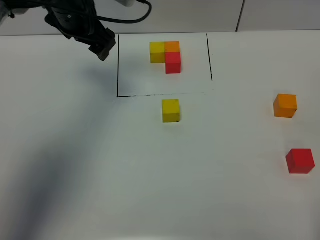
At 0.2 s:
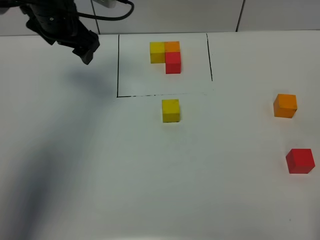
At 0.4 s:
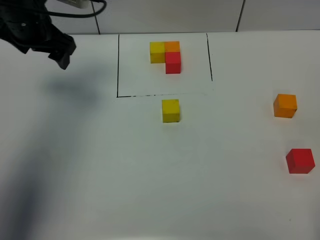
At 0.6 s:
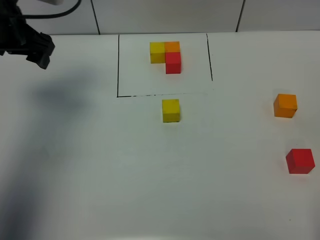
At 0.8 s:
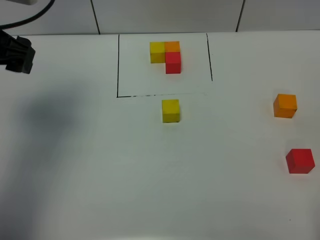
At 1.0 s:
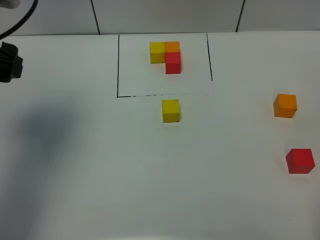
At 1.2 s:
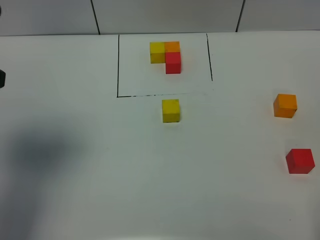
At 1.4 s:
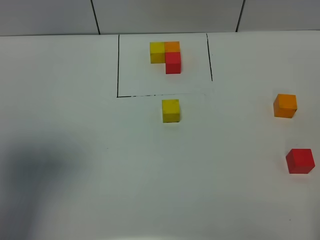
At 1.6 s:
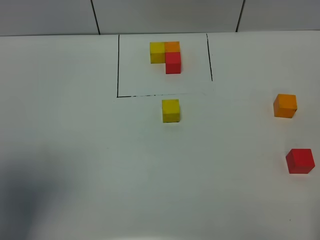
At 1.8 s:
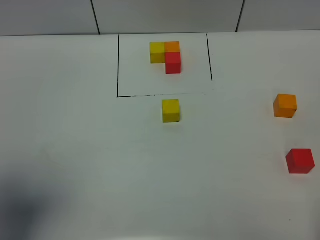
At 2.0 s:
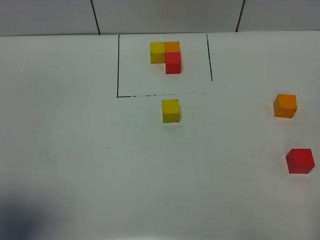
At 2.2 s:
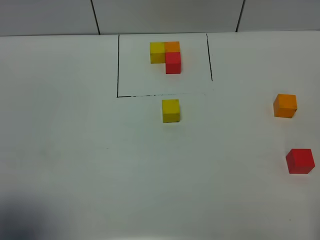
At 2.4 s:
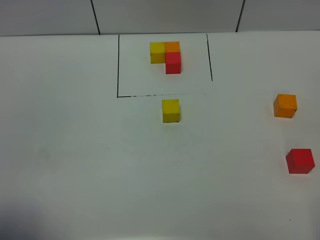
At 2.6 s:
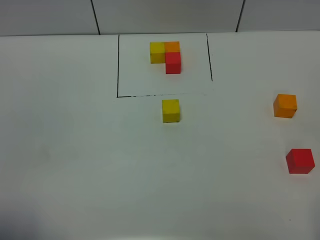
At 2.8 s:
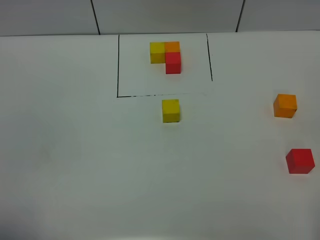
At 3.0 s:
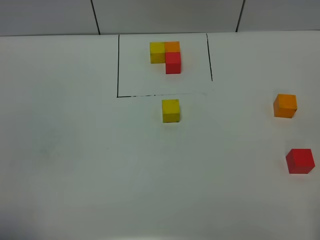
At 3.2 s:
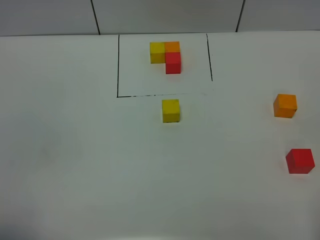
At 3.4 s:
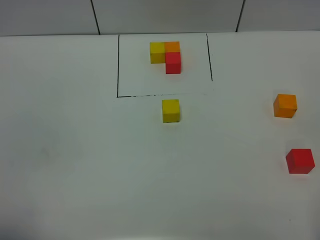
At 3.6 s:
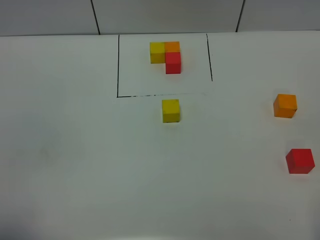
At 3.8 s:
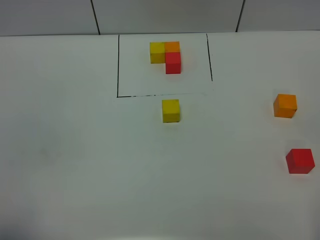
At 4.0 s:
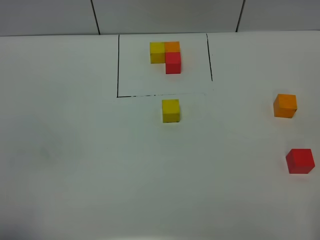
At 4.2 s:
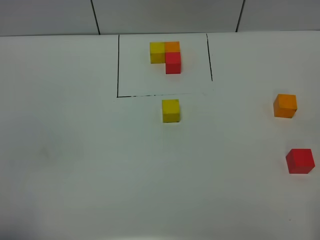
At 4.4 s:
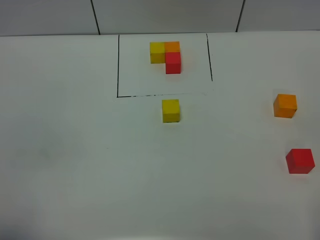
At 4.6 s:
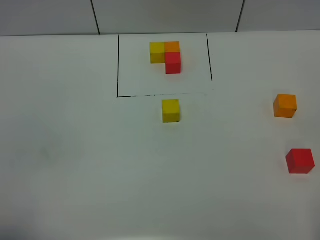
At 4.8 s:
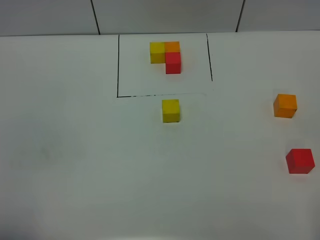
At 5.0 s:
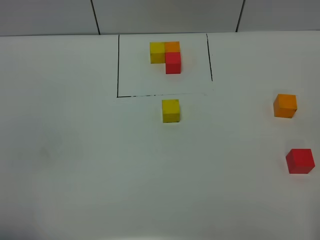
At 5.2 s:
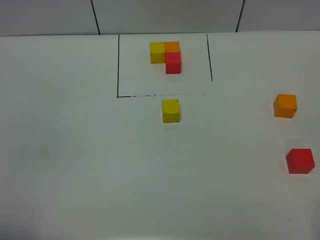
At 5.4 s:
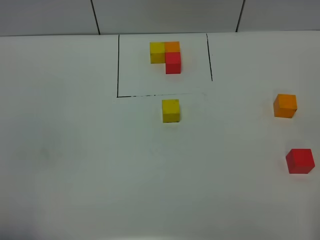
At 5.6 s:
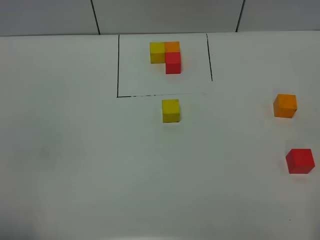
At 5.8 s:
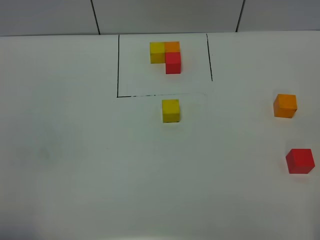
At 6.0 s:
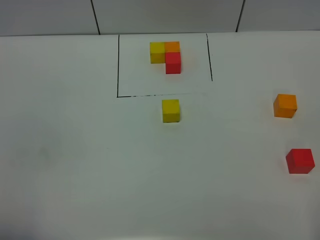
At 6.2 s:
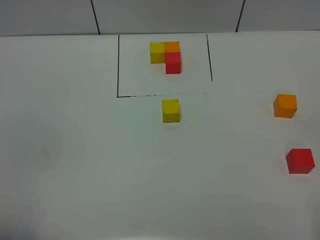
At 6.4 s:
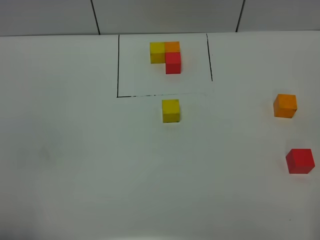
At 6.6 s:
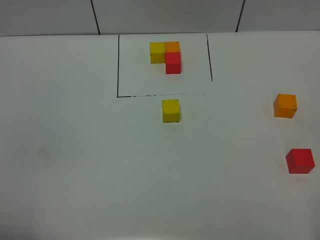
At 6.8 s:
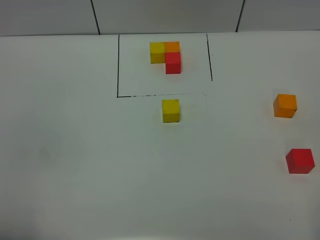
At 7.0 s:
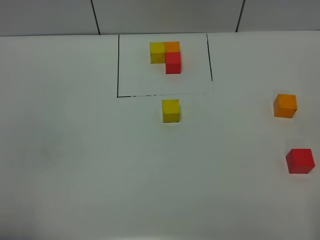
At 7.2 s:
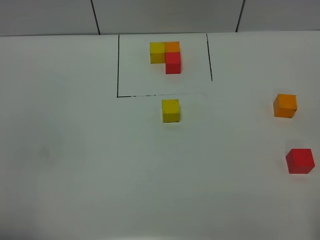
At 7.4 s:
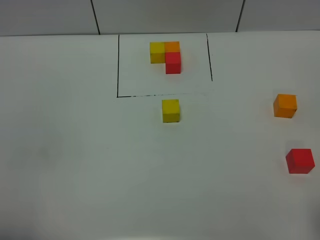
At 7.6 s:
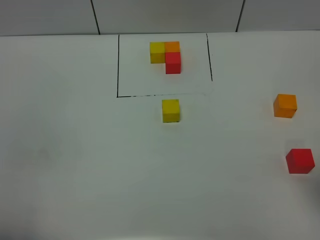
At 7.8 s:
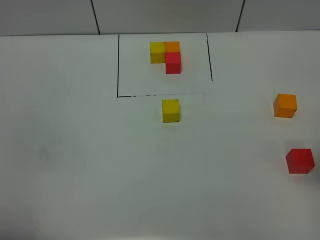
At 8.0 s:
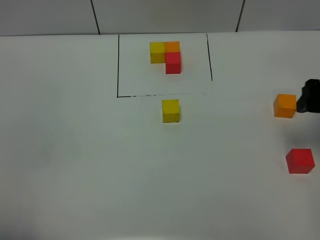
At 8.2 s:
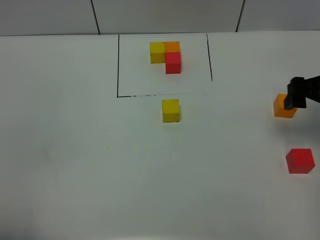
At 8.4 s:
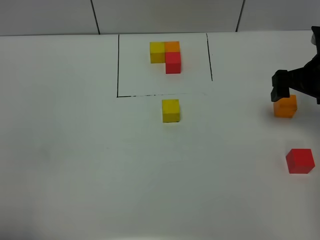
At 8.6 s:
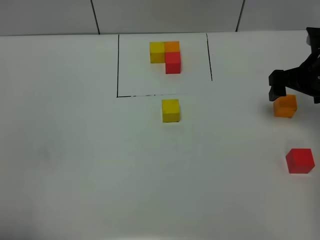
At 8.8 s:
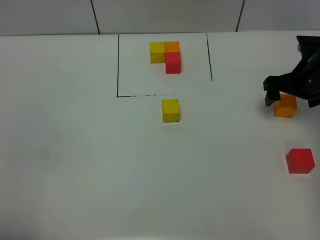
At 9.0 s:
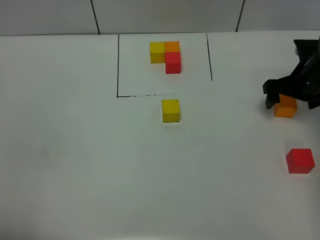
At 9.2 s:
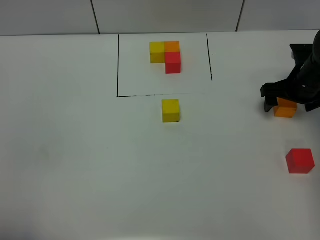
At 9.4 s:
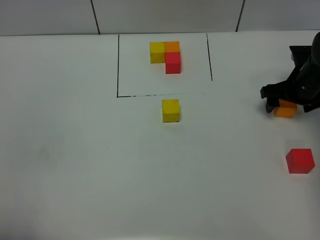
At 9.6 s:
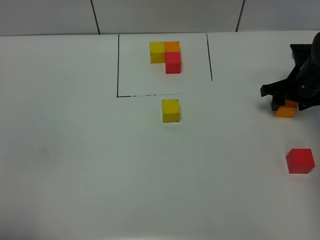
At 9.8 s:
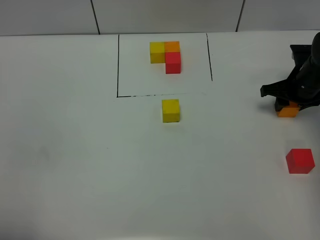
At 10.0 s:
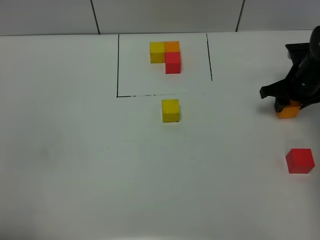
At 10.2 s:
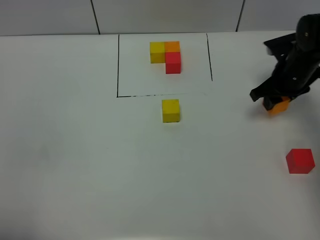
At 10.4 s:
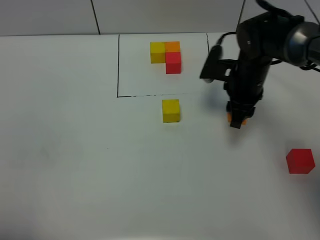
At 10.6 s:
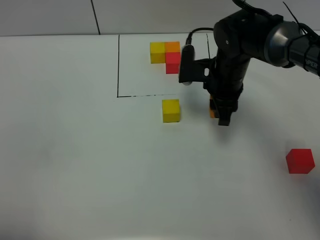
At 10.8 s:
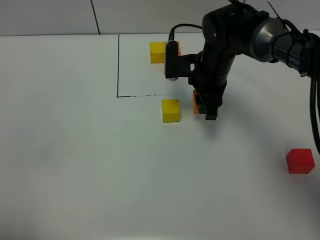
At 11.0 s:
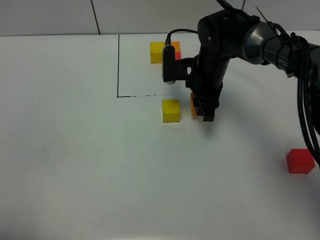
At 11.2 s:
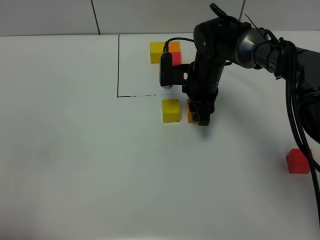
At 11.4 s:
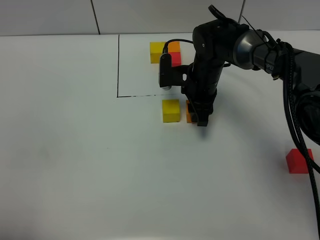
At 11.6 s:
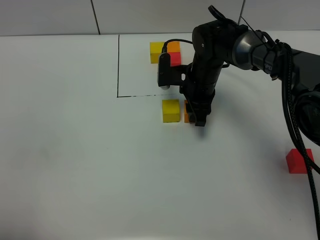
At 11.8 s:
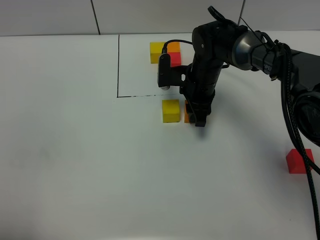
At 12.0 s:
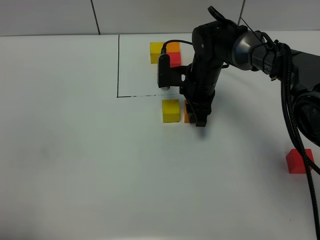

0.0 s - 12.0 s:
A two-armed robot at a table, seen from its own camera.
Task of the whole recording: According to the building block template in front, assemble the scattered blocks together.
0.0 s - 1.6 s: The left gripper heads backward, covering roughly 35 cm.
1.6 s - 3.0 s: The left gripper shifts about 15 cm backward and downward.
3.0 s - 4.4 s: Both grippers stay about where they are.
7.6 s - 9.0 s: The right gripper travels forward and downward by roughly 30 cm.
9.0 s - 10.4 s: The right gripper is displaced to the left by roughly 15 cm, and closes up.
10.4 s - 12.0 s: The right gripper shifts about 5 cm to the left.

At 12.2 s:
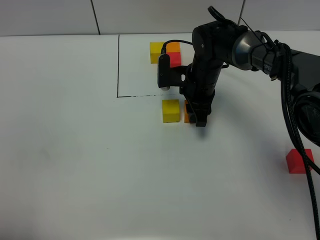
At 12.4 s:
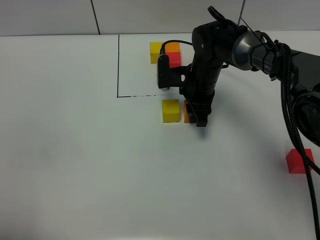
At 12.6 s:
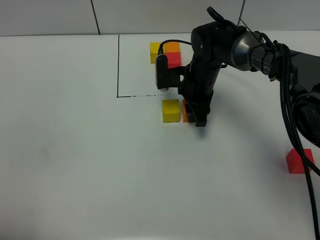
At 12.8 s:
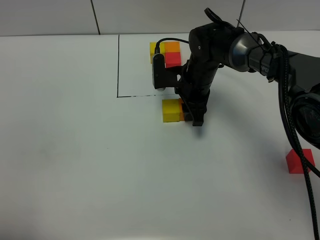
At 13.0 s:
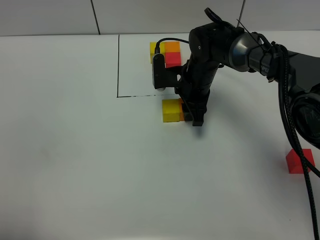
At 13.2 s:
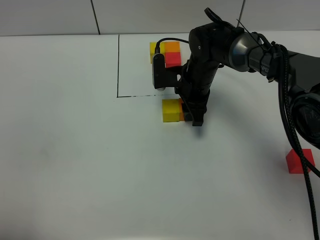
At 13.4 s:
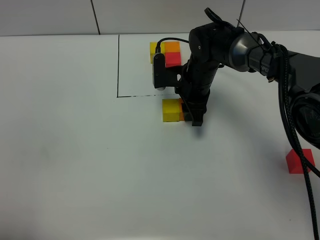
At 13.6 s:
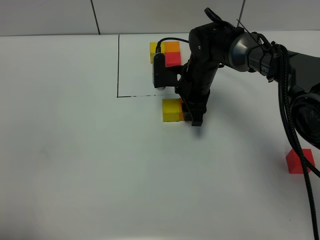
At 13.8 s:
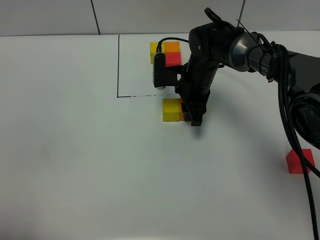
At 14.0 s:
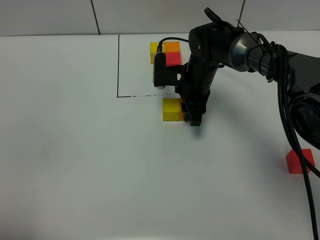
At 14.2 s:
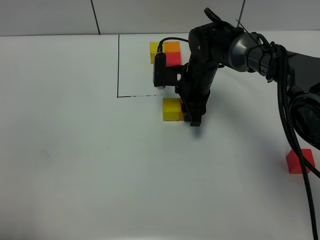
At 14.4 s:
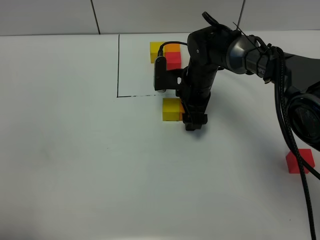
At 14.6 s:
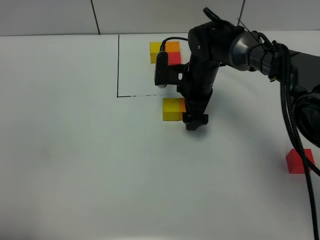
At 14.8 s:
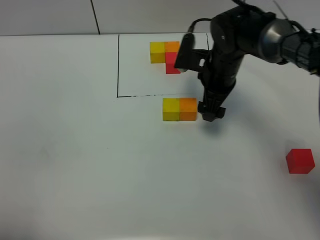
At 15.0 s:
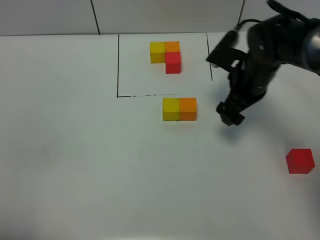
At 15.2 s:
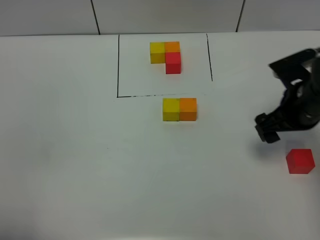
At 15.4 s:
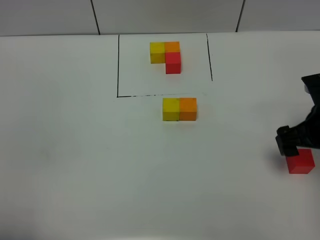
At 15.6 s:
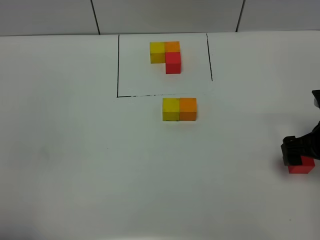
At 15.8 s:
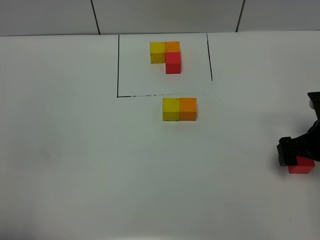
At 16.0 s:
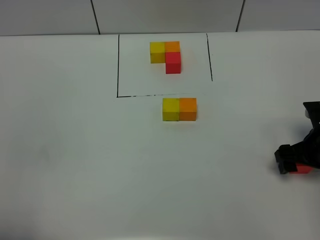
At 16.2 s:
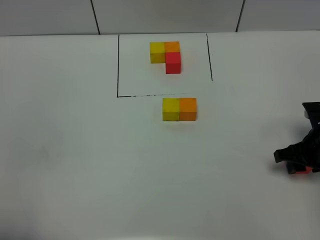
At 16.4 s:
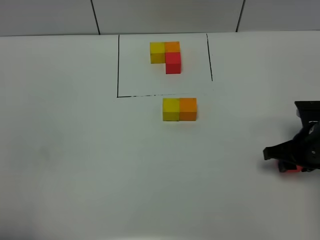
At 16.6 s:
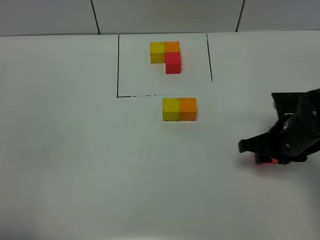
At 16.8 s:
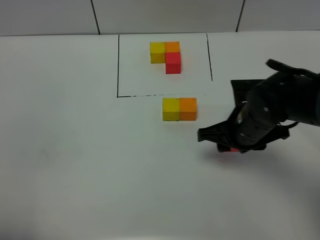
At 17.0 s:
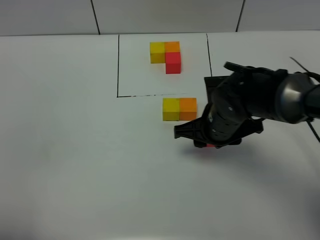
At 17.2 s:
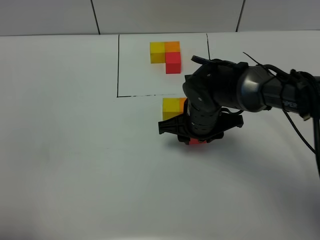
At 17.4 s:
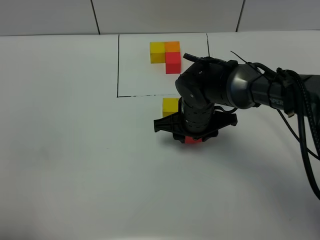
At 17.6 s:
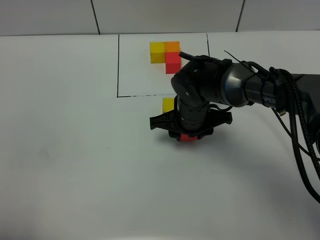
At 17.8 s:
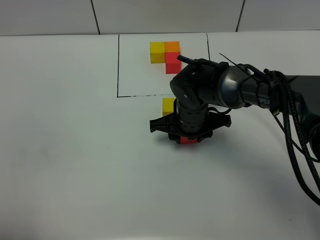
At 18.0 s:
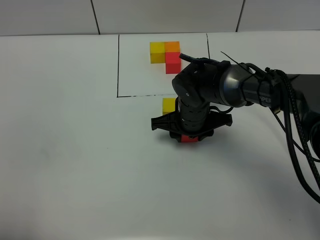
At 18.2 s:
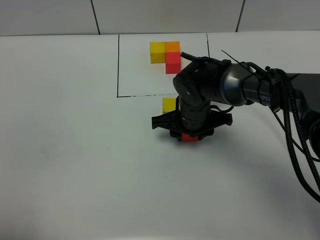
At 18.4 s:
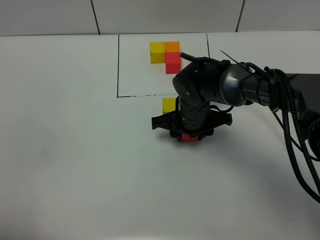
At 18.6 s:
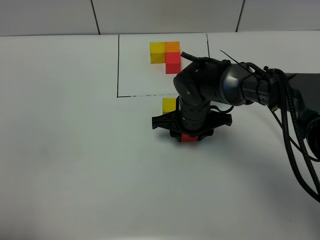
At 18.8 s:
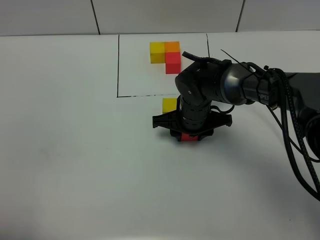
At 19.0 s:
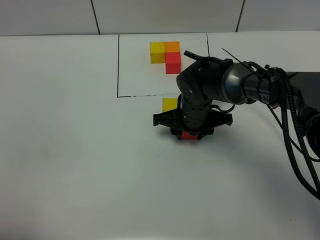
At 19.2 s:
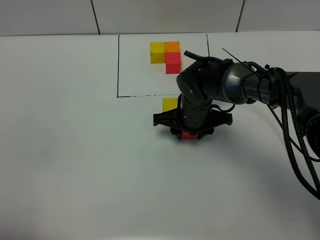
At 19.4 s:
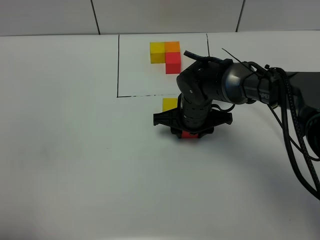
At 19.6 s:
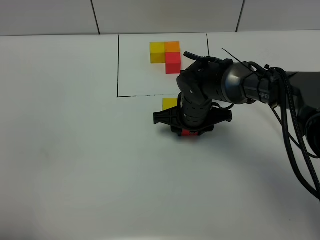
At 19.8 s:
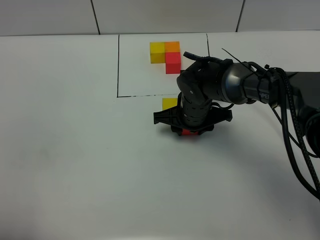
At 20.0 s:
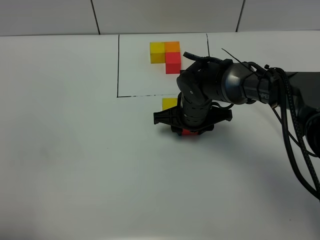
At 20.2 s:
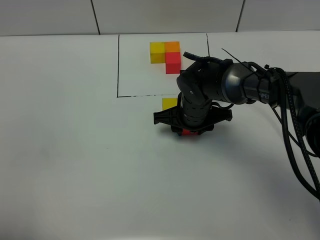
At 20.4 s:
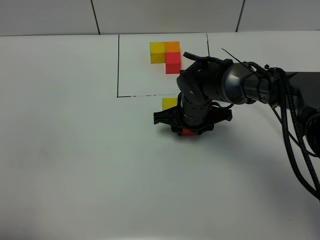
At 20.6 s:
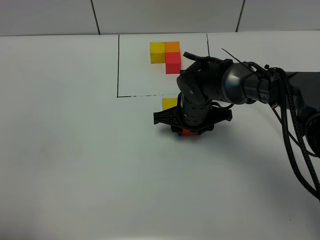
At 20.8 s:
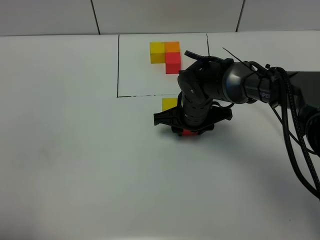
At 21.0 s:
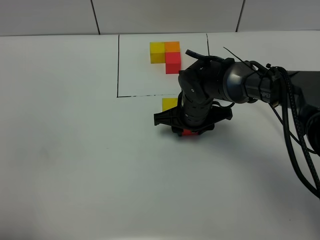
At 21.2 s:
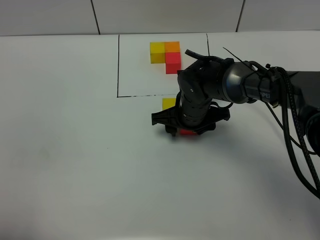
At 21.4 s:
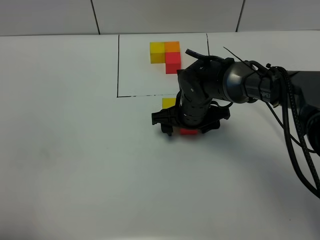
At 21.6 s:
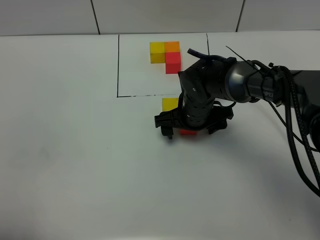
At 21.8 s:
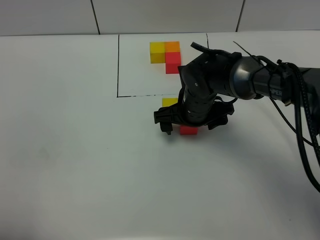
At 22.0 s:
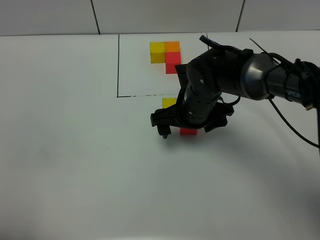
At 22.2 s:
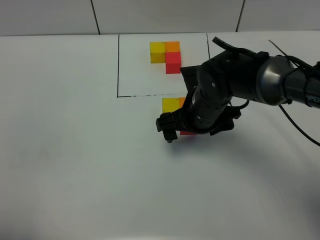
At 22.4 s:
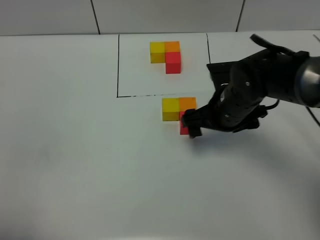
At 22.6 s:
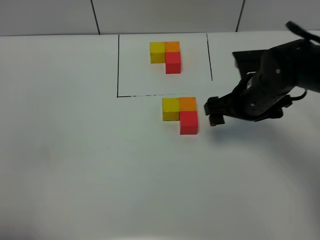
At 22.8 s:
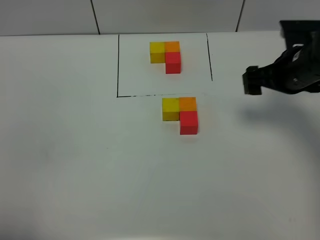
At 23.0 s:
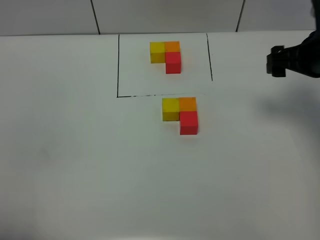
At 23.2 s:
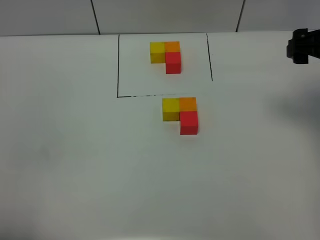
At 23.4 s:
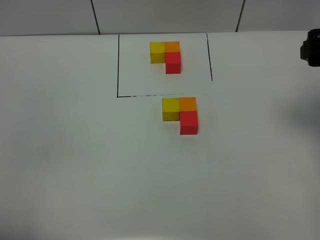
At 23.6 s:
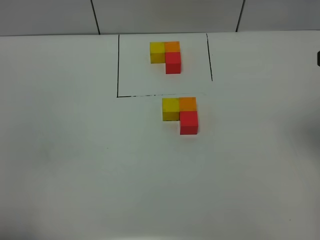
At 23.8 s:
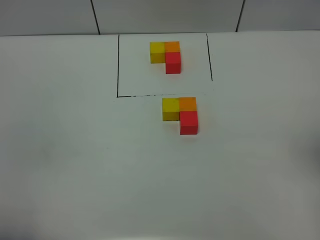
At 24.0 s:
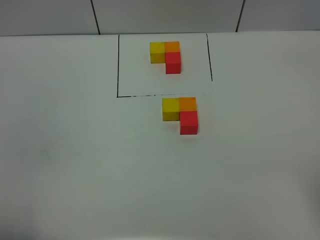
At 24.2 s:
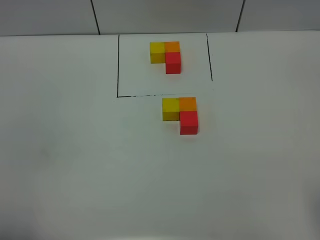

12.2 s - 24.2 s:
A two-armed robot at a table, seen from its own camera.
Task of the whole recording: According to the building block template in front, assemble the scattered blocks together.
Step, 12.2 s - 14.4 s: Put the orange build block on the right of the yellow build block.
Step, 14.6 s - 21.6 s: Put the red build block on the behind of the orange build block.
12.2 s - 13.8 s: The two grippers keep their place.
13.8 s - 15.2 s: The right gripper goes approximately 20 cm to the right and backward, and opens.
15.2 s - 16.6 s: The right gripper ends up approximately 5 cm from where it was, and closes up.
16.6 s - 18.2 s: The right gripper travels to the left and forward by approximately 20 cm.
18.2 s - 19.8 s: The grippers move only a little.
19.8 s - 21.2 s: The right gripper opens up.
21.2 s - 22.6 s: The right gripper travels to the right and upward by some 15 cm, and opens up.
22.6 s - 24.2 s: The right gripper travels backward, upward and to the right by approximately 35 cm.
